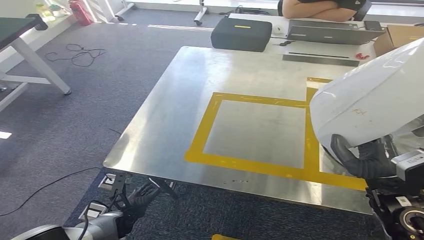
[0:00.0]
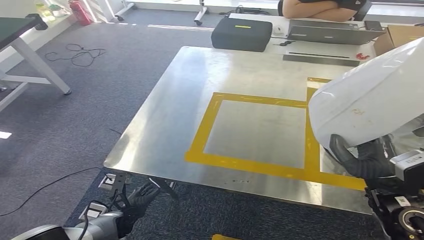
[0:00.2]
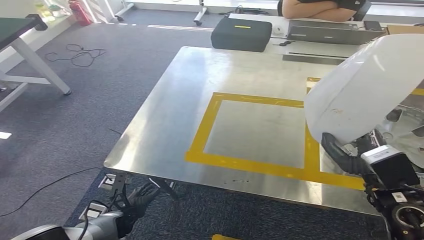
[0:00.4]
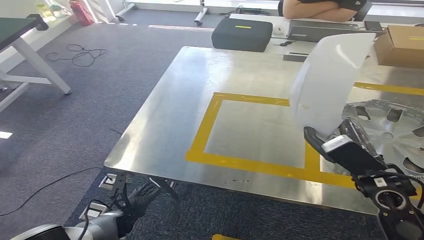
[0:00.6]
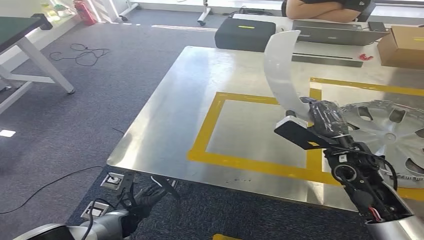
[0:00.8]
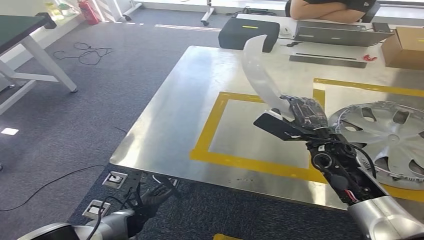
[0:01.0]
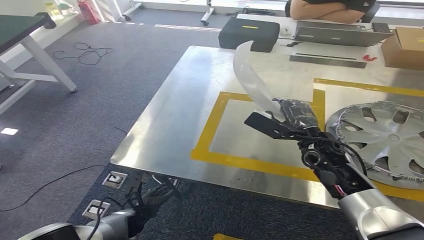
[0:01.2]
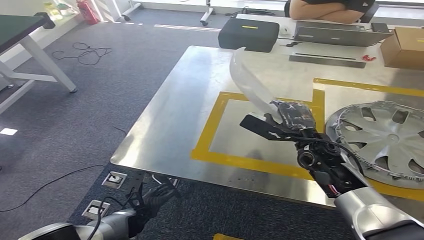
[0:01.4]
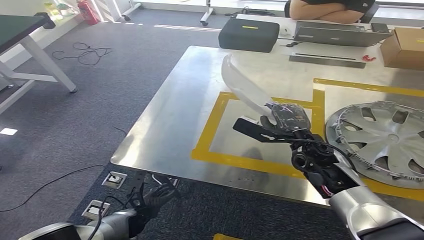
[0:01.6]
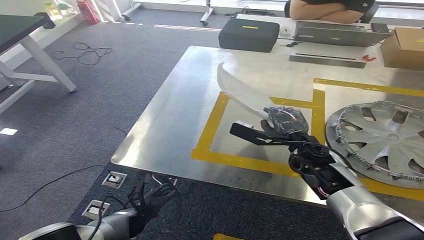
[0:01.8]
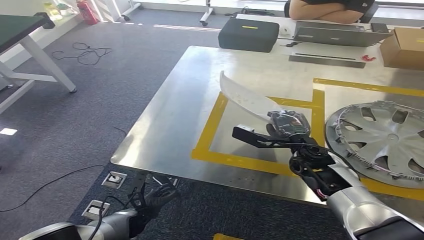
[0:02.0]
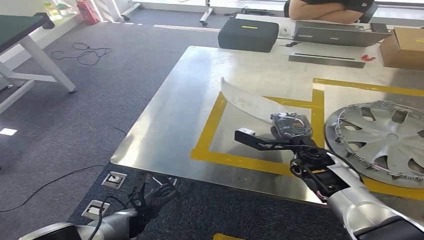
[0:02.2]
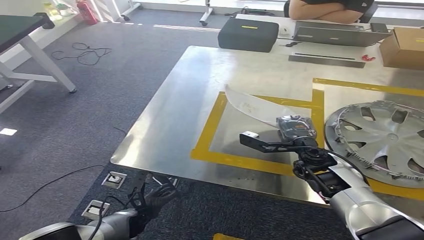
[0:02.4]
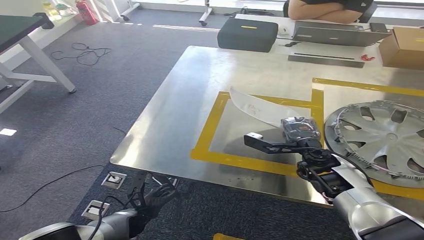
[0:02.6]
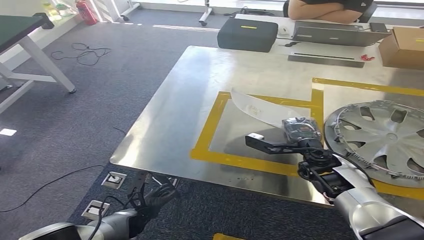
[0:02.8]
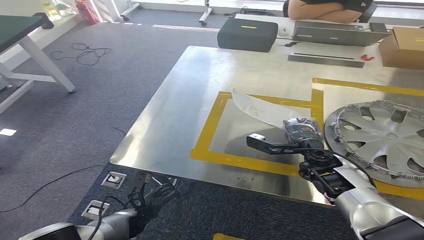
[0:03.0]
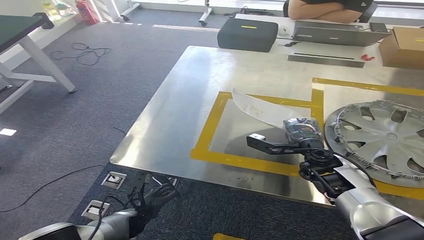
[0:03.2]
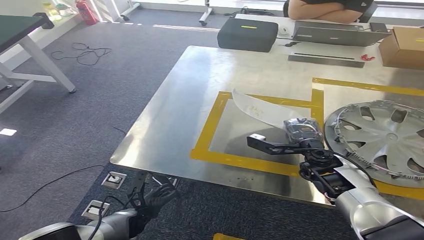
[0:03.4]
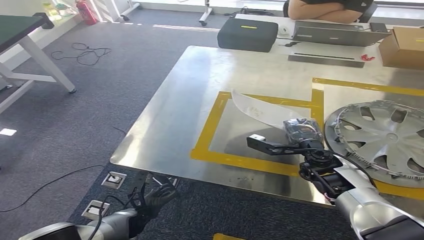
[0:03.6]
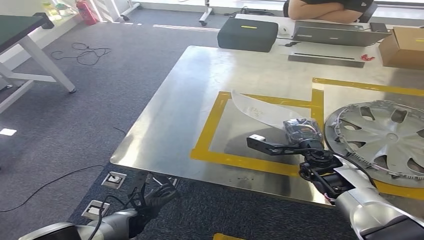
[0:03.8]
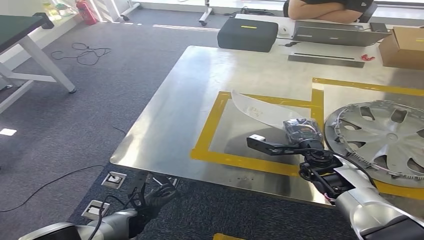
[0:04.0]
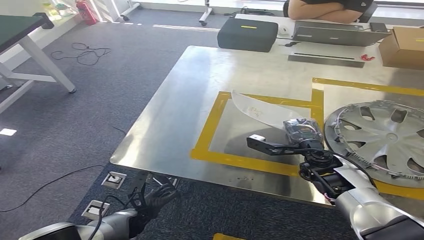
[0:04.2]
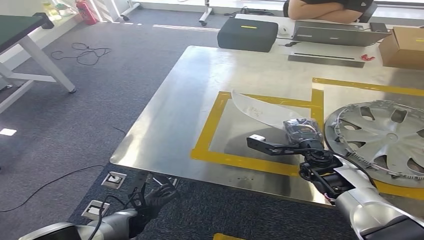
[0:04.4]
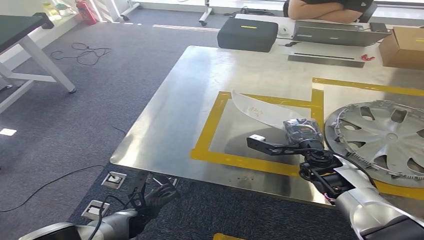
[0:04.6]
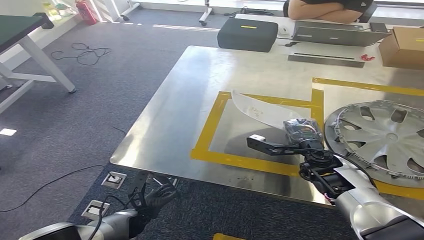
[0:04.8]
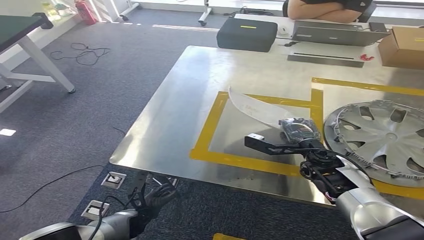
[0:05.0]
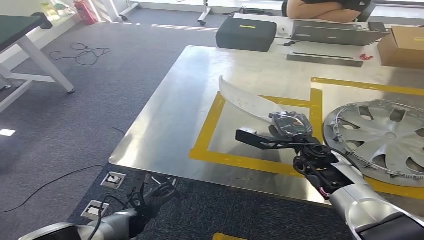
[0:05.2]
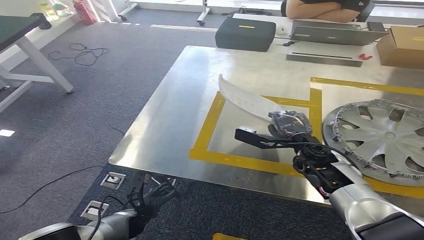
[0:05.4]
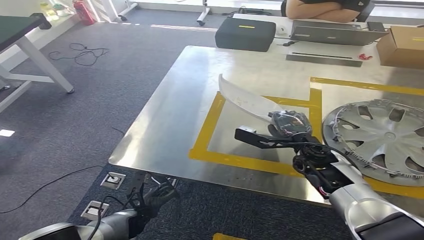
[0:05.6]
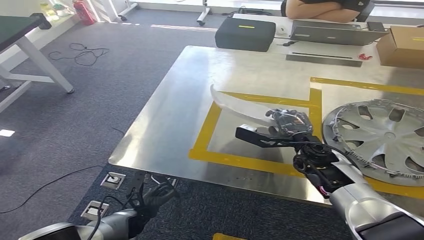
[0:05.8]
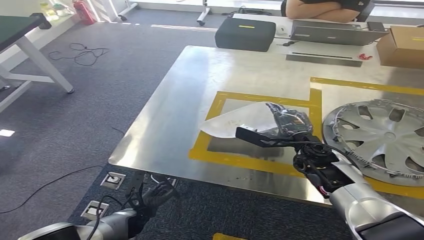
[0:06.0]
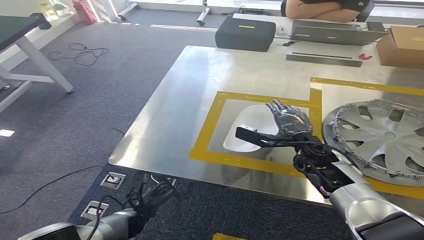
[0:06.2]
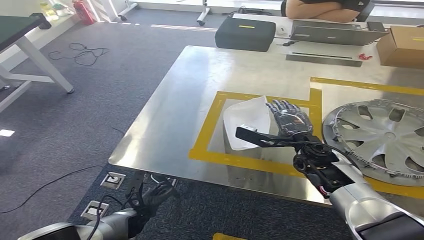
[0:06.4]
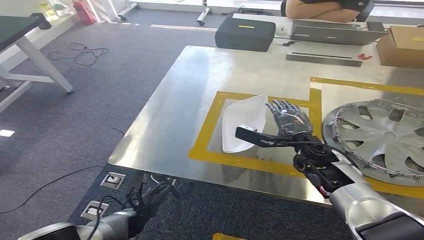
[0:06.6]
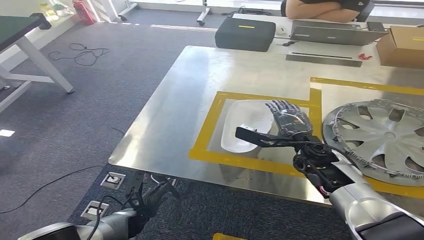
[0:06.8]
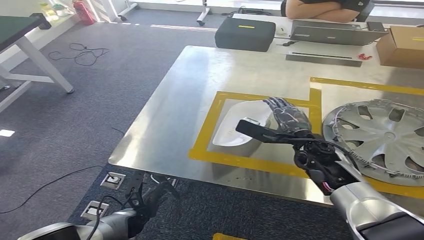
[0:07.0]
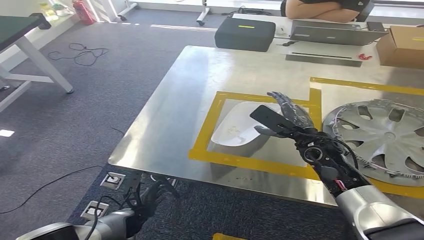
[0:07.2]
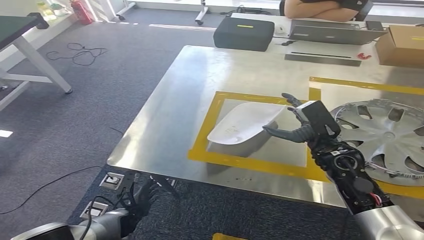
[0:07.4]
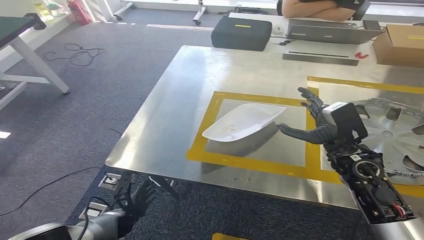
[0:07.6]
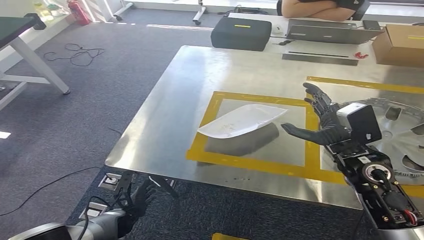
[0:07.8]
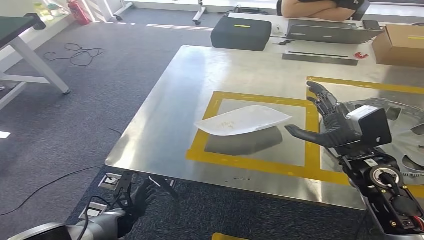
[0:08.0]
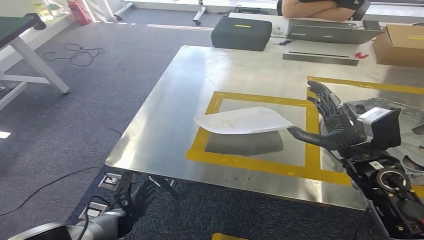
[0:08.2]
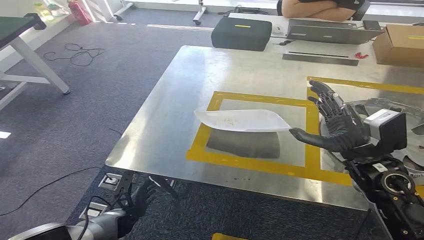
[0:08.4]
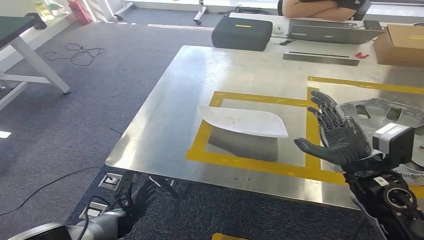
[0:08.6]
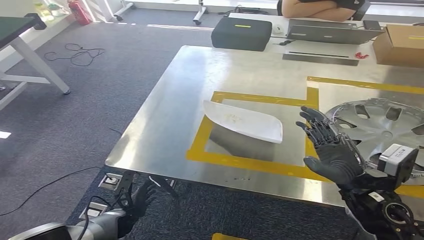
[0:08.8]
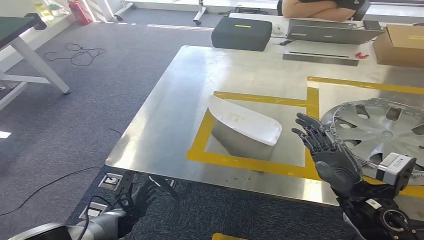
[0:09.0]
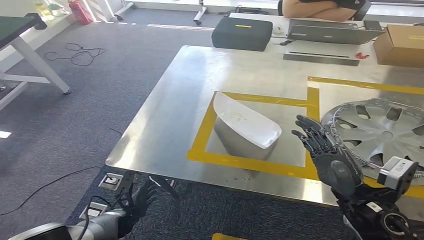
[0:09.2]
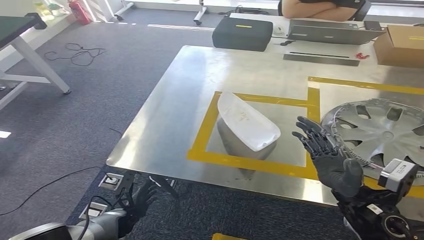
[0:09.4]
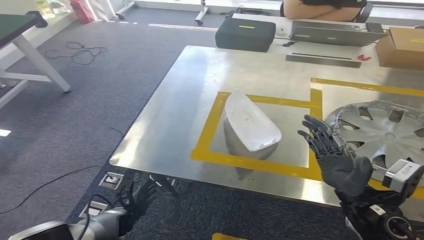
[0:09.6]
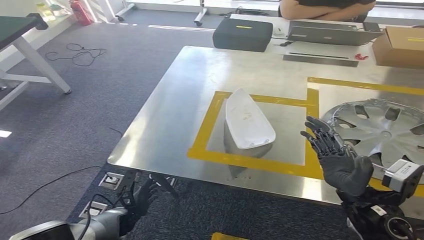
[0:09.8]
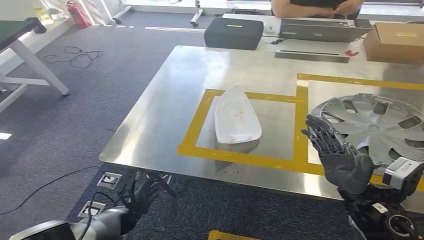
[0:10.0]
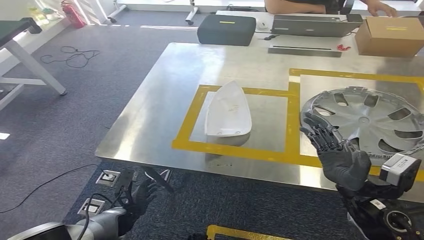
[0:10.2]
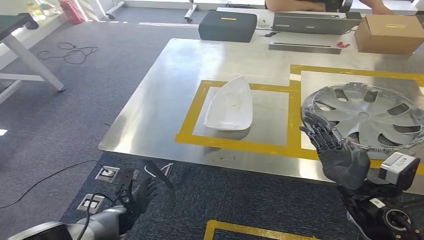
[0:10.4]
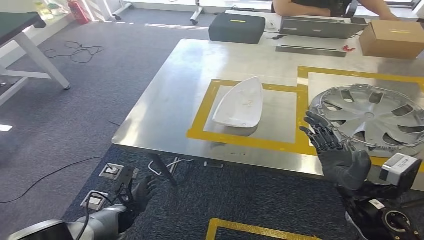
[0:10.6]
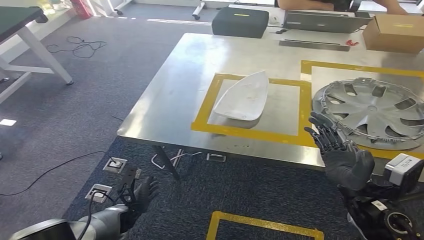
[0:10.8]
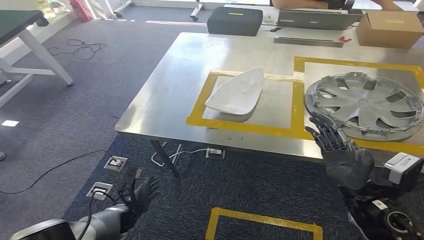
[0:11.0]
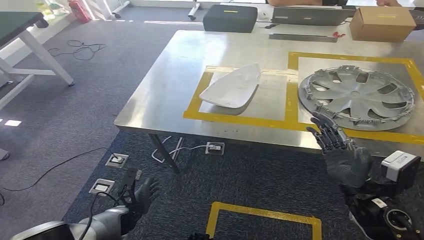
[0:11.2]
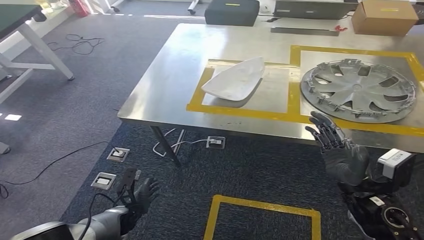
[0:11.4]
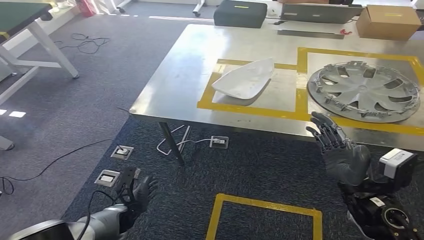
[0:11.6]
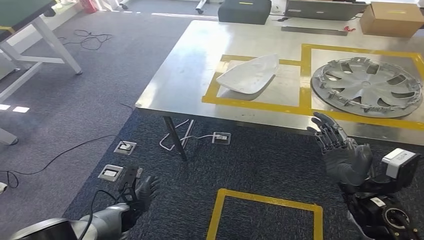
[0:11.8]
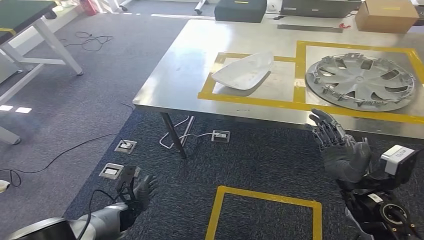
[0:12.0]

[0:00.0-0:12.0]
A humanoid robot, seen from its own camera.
Step, 0:00.0 to 0:11.6: Insert the small component into the corresponding slot on the workbench.
0:03.0 to 0:04.4: Both hands stay about where they are.
0:04.4 to 0:06.0: The hands stay close to where they were, moving slightly.
0:07.6 to 0:09.0: The right hand moves backward, roughly 10 cm.

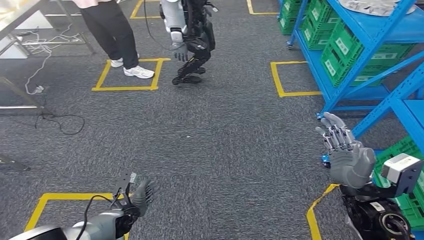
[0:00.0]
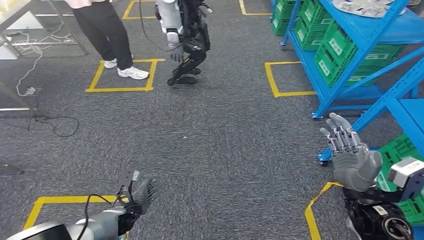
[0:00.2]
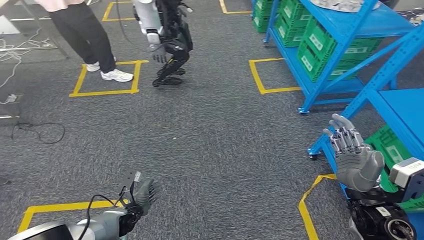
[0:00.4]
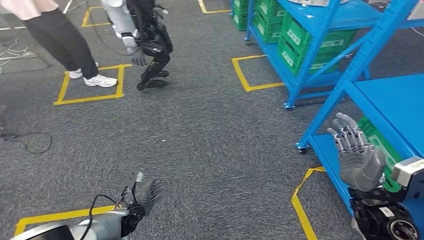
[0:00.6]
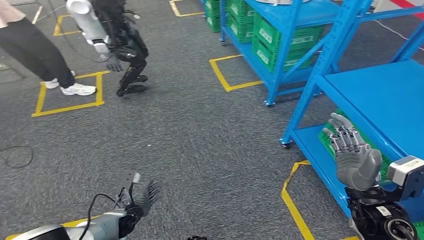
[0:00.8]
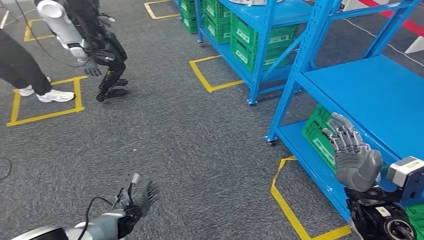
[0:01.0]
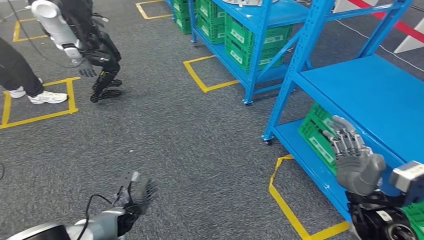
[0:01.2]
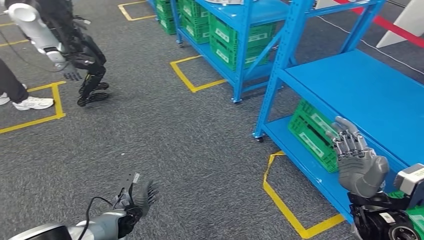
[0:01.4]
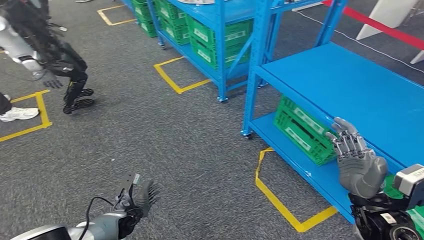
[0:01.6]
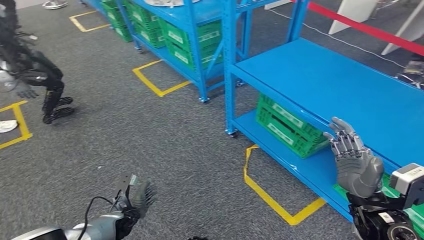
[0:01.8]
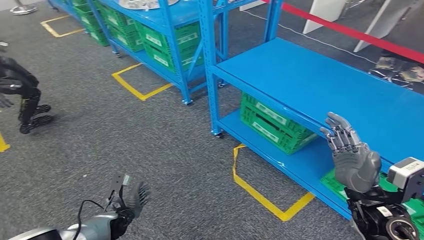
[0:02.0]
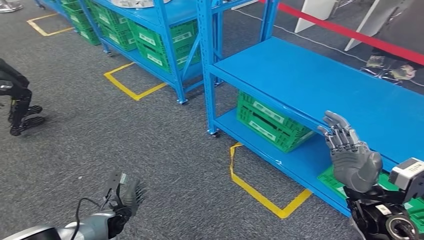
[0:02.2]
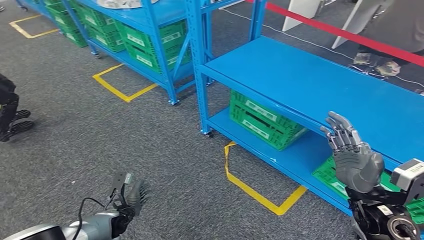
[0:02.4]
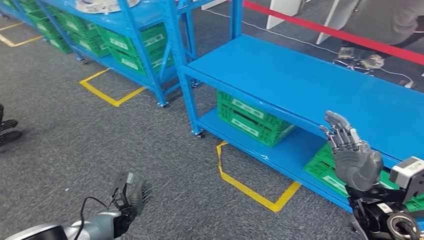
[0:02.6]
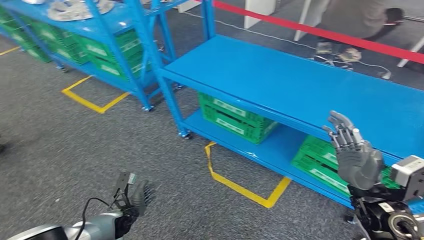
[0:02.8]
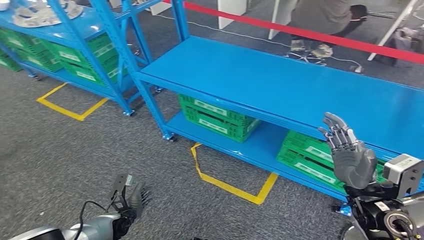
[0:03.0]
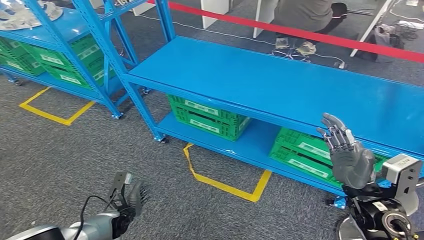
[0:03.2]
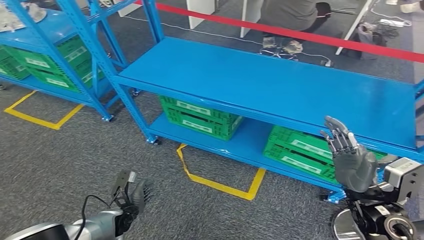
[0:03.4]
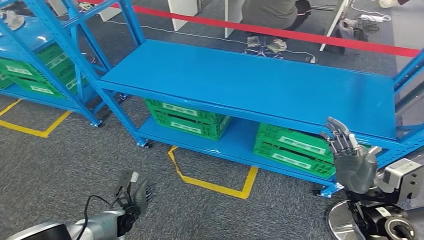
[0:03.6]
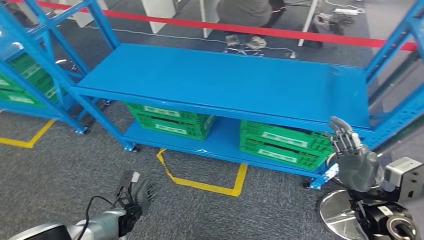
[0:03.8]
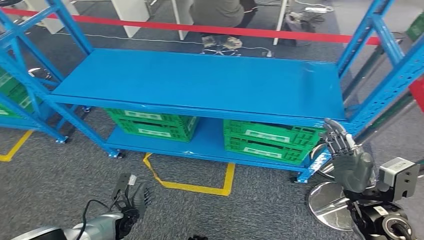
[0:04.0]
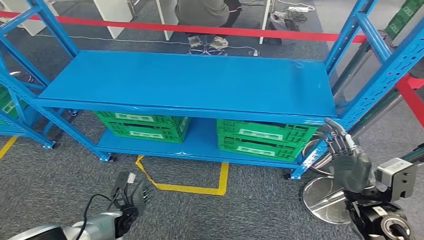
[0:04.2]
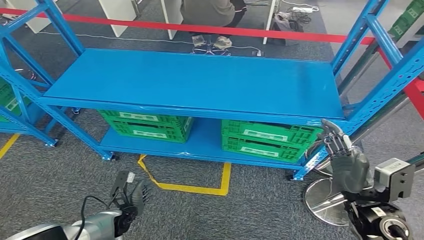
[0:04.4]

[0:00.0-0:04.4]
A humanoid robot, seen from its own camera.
Step, 0:00.0 to 0:04.4: Move to the initial position at the workbench.
